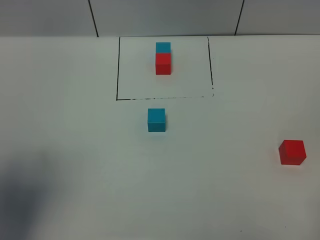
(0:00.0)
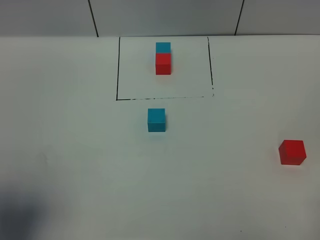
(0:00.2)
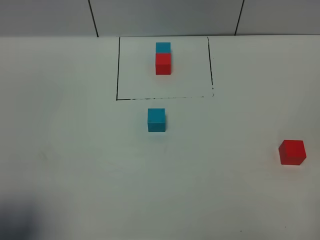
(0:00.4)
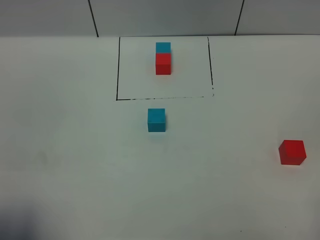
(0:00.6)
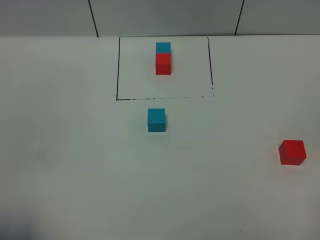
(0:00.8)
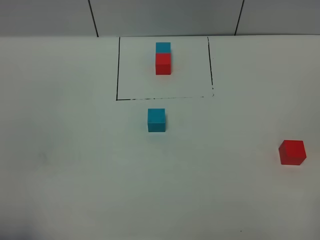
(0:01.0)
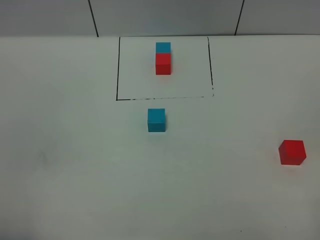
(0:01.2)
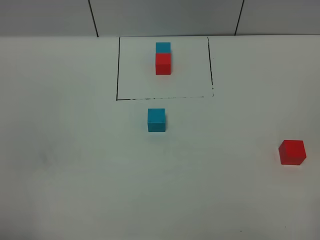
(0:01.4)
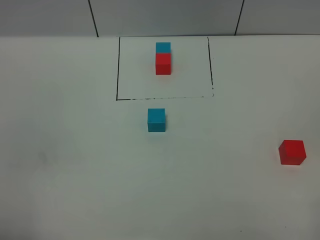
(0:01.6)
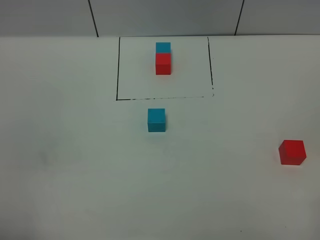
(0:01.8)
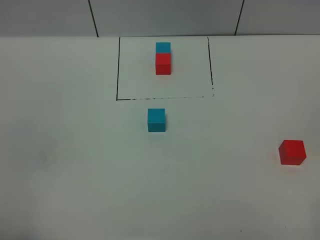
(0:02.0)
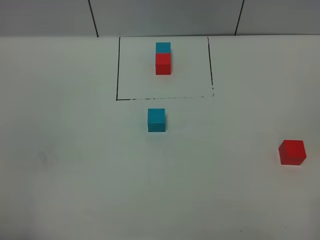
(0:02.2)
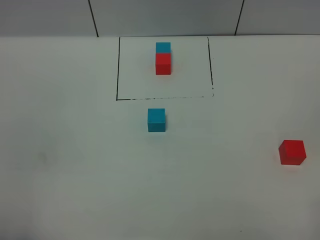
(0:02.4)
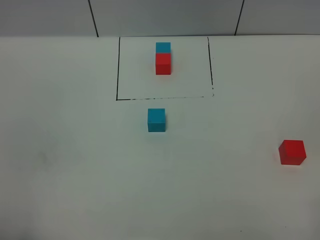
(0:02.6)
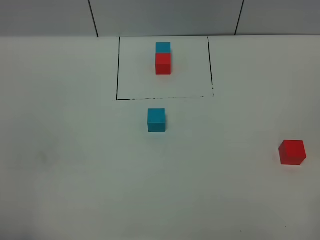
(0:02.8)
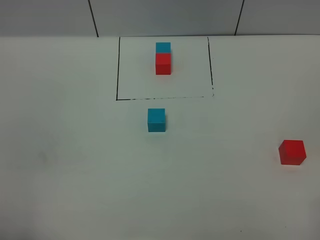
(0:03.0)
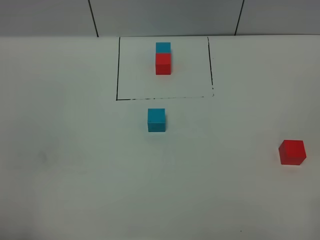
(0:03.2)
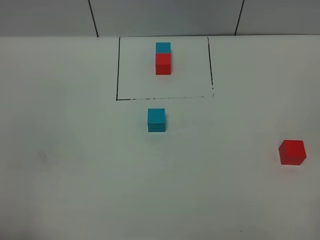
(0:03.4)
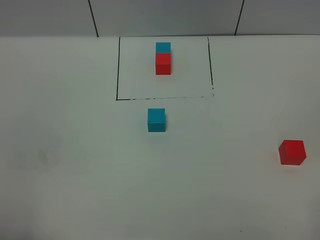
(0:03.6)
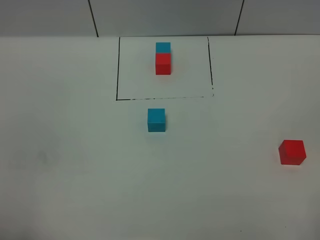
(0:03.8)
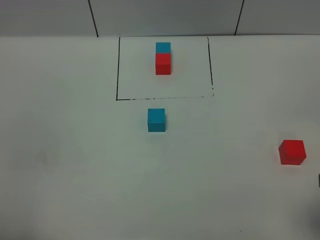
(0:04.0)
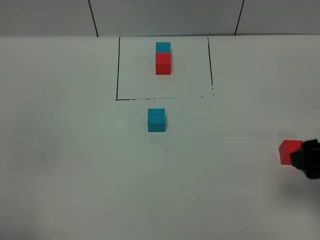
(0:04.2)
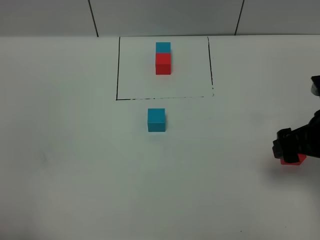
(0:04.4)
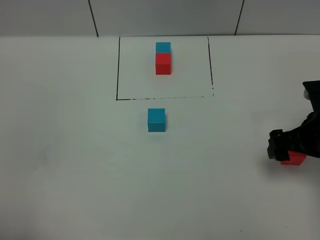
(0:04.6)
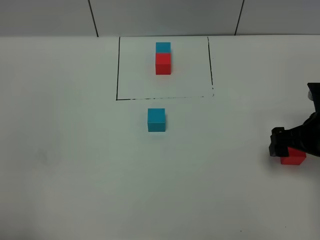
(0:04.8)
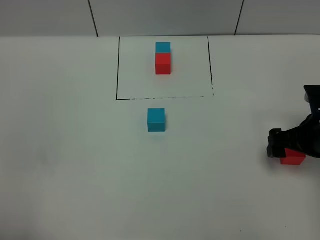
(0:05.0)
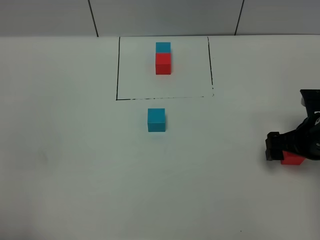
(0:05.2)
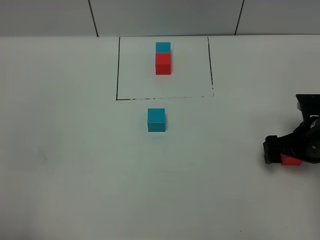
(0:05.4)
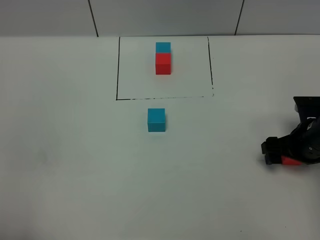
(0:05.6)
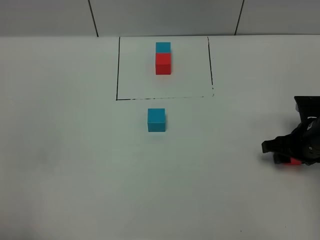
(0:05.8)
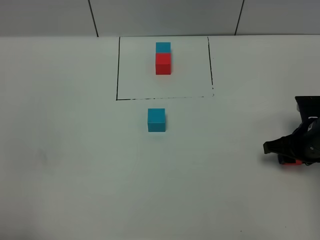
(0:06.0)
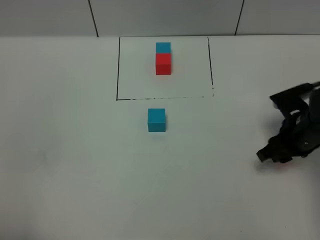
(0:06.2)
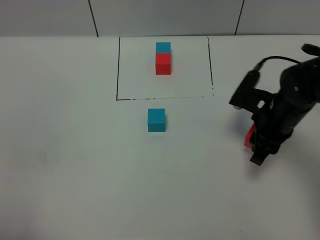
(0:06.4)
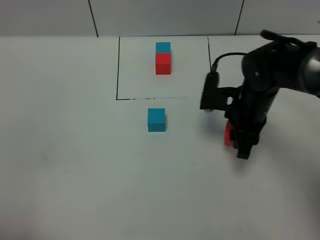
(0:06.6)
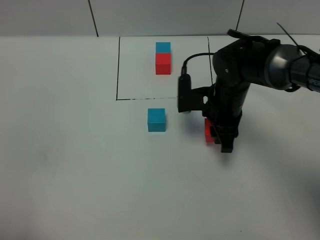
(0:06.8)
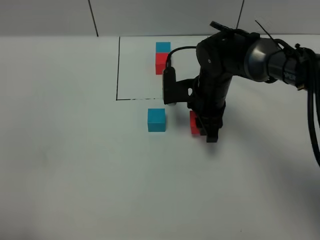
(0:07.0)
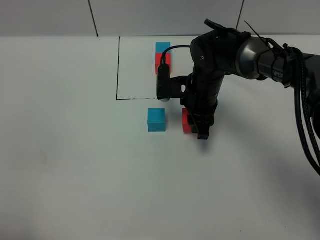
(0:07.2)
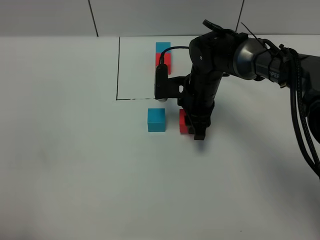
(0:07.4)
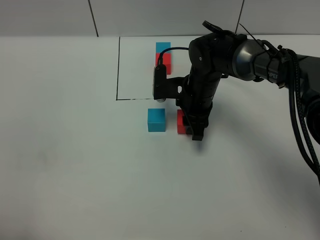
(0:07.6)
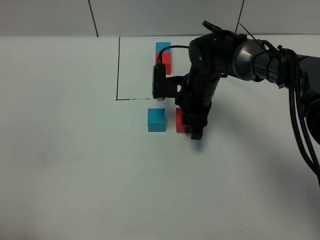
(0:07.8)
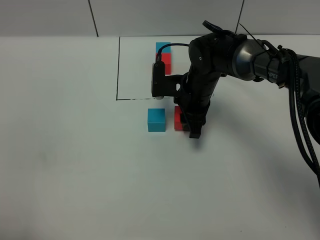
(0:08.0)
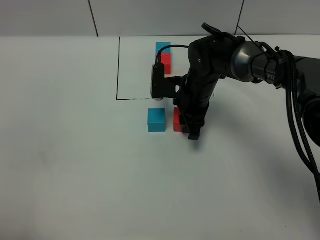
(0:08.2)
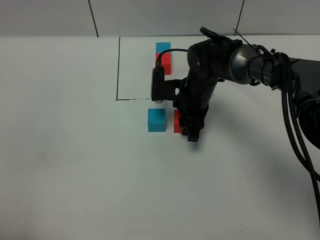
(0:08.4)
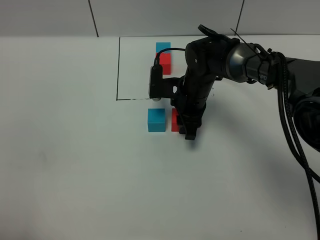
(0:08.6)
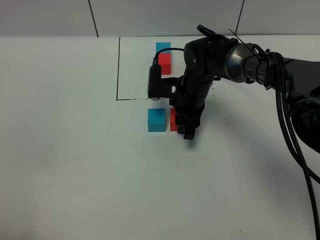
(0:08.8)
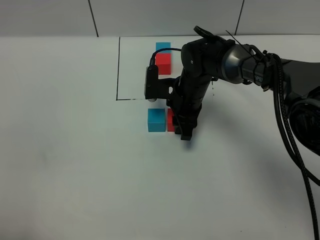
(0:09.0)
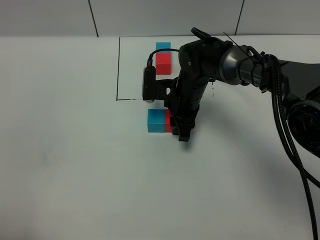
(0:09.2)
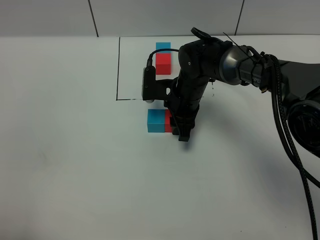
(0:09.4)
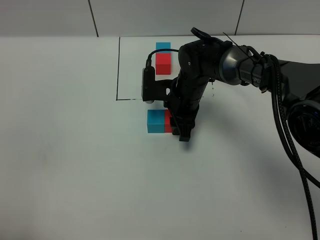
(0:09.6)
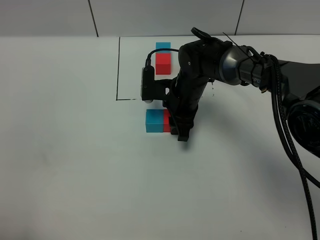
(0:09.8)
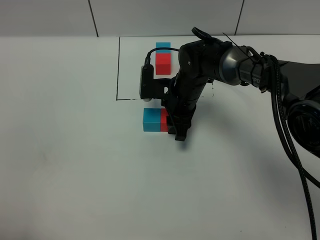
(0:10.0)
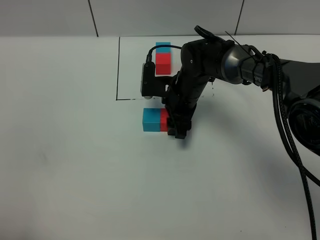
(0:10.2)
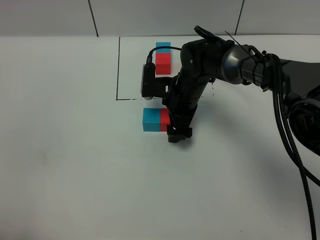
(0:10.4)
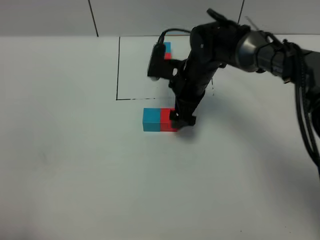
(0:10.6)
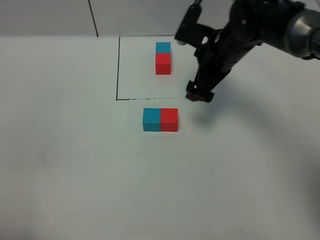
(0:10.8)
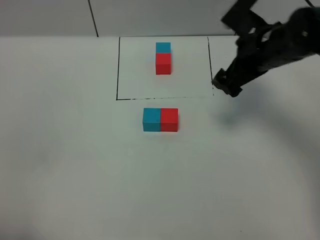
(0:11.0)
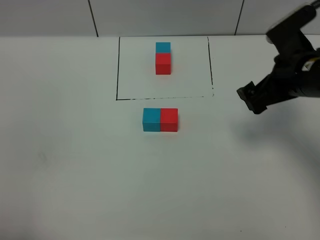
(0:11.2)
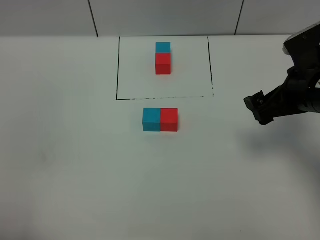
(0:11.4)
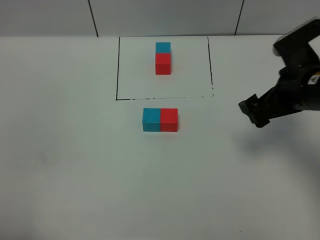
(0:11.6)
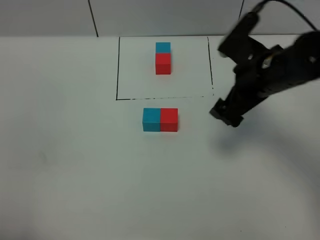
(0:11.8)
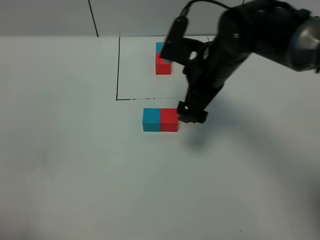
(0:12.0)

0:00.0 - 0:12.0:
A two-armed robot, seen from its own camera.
Task of the whole recording: According to the building block template in front, assemble the scattered blocks together.
Step, 0:00.0 - 0:10.4: Put the red cube on the right of the blue cube.
0:00.0 - 0:01.6: The left gripper is displaced backward and downward by roughly 15 cm.
0:03.0 - 0:04.4: The right gripper goes approximately 25 cm forward.
0:04.4 - 0:06.0: The right gripper goes approximately 10 cm downward, and closes.
0:06.0 - 0:07.6: The right gripper moves to the left and forward, about 25 cm.
0:07.6 - 0:09.0: There are only small adjustments of the grippers.
0:09.0 - 0:10.4: The right gripper opens its fingers.
0:10.4 - 0:12.0: The right gripper shifts roughly 10 cm upward and backward, and moves approximately 15 cm to the right and comes back.

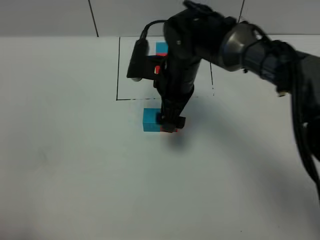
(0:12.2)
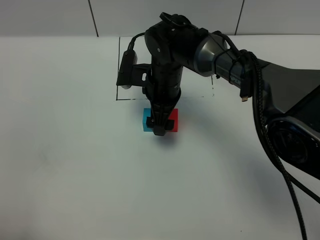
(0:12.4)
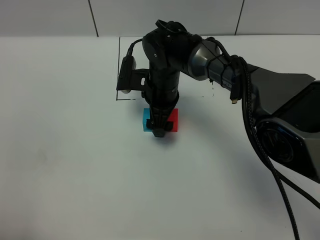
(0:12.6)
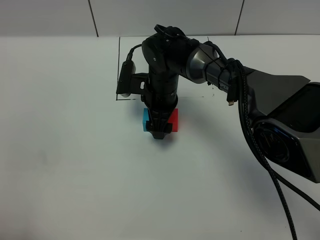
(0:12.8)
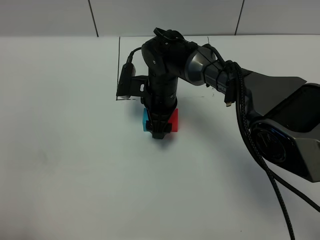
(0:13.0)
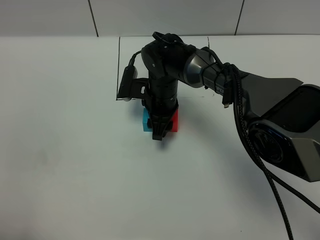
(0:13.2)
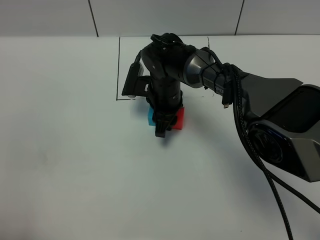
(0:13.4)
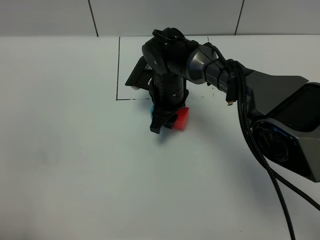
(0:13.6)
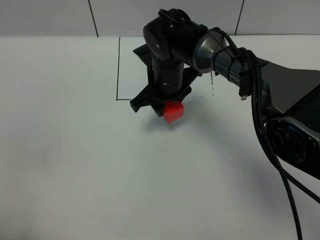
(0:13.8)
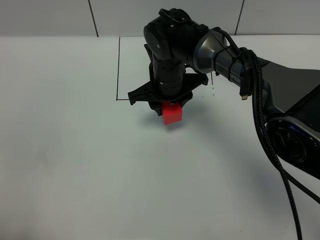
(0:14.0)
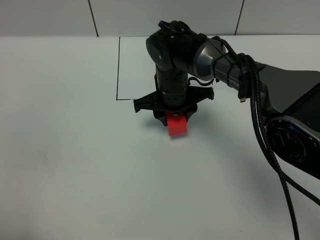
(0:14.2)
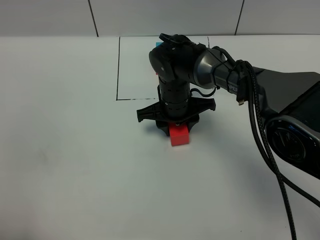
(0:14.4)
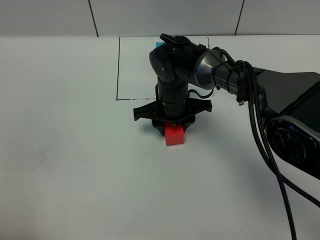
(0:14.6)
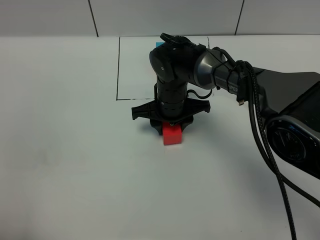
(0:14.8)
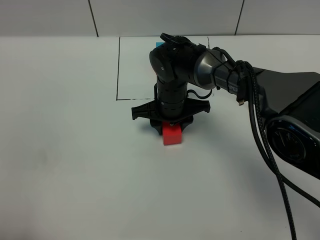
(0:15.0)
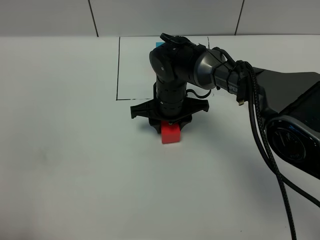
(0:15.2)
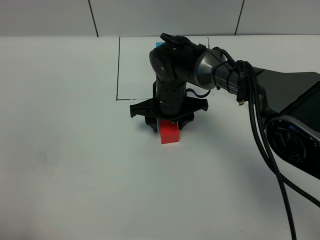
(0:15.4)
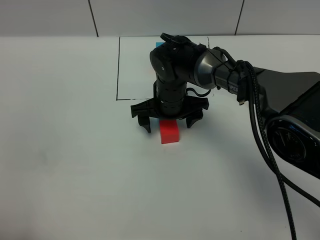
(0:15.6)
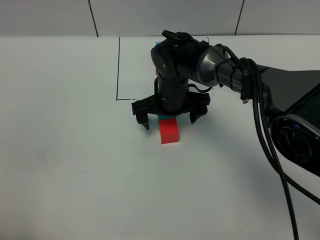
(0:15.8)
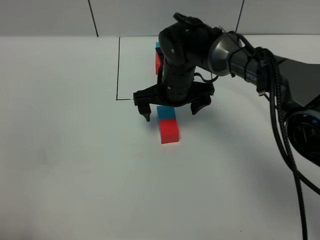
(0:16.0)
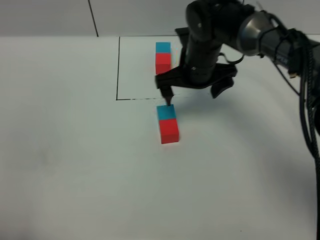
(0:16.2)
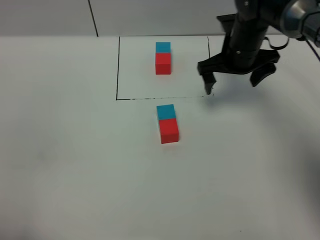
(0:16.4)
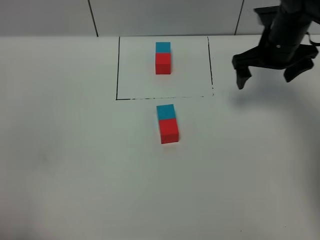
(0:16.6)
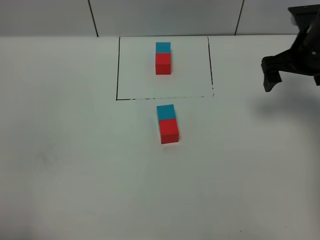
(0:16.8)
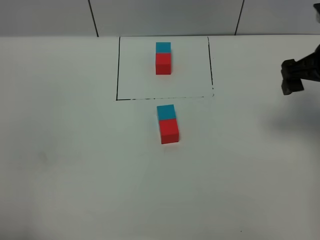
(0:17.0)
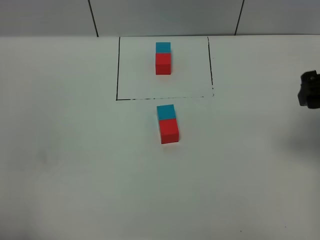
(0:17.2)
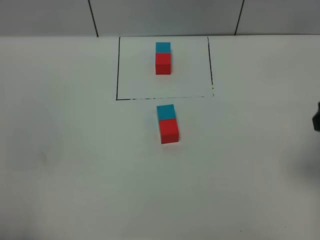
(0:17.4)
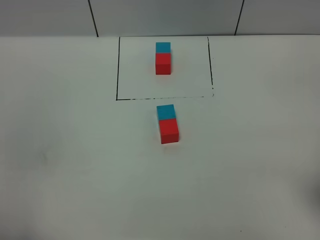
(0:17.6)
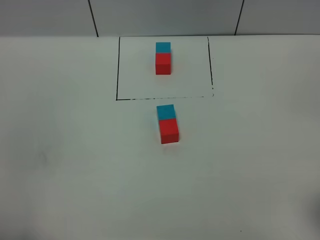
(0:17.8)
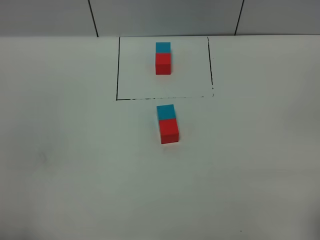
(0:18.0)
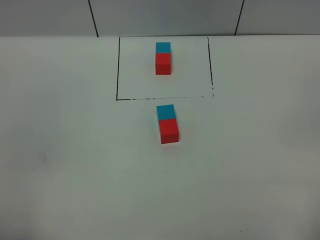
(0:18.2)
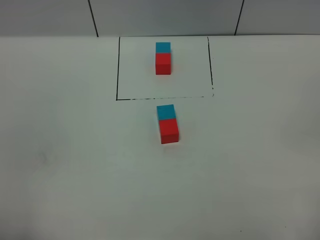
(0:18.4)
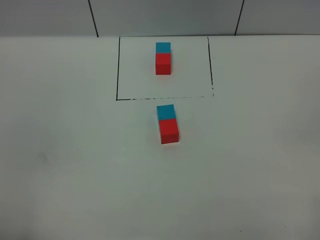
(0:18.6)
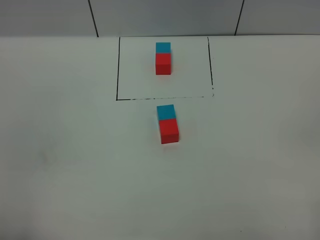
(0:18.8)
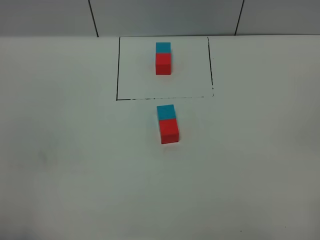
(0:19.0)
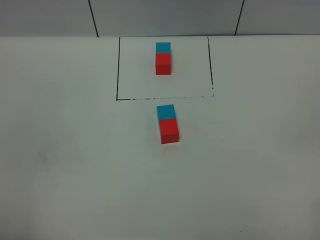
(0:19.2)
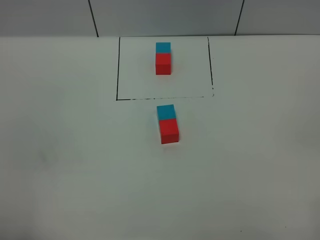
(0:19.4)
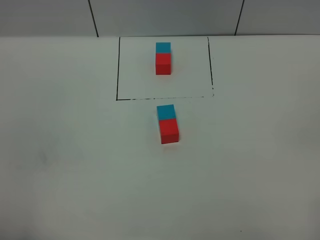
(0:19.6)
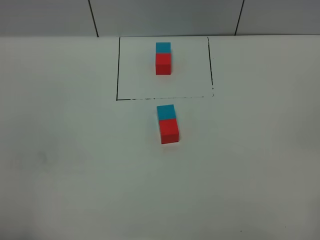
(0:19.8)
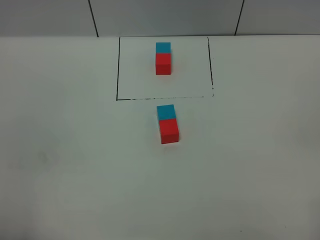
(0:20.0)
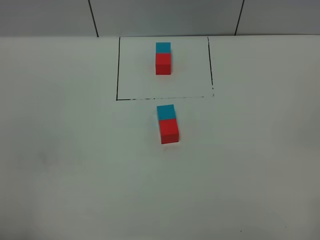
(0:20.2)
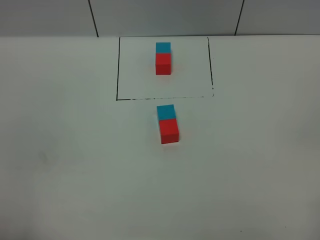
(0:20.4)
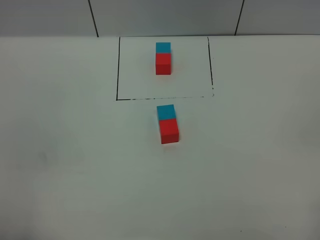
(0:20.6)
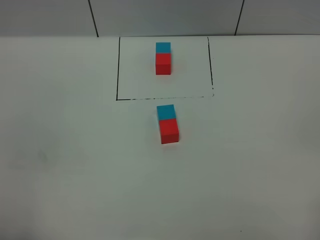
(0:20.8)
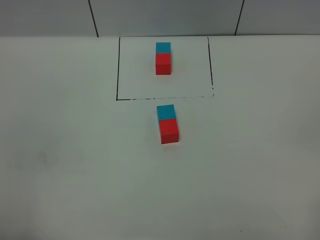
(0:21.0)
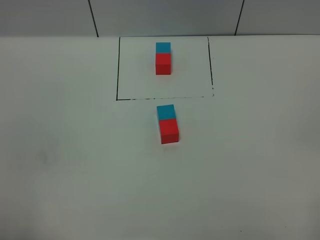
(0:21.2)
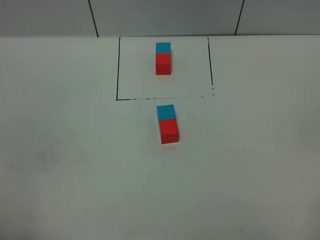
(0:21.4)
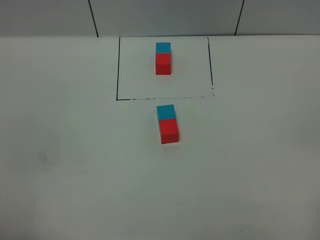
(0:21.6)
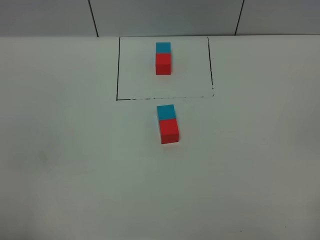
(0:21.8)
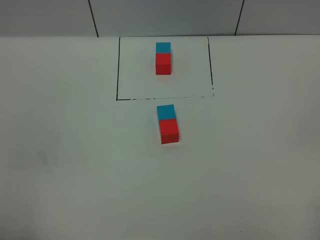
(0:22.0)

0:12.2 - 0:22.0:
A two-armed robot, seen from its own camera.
Task of the whole recording: According to the building block template in front, assemble the scattered blocks together.
Step, 0:12.2 - 0:15.6: Adjust the pose of the building blocks.
0:12.2 - 0:13.6: The right gripper shifts about 5 cm downward, and closes its fingers.
0:15.0 - 0:16.4: The right gripper moves to the right and upward, about 15 cm, and opens up.
0:16.4 - 0:17.8: The right gripper goes about 35 cm backward.
0:19.2 - 0:22.0: Both grippers stay about where they are.
